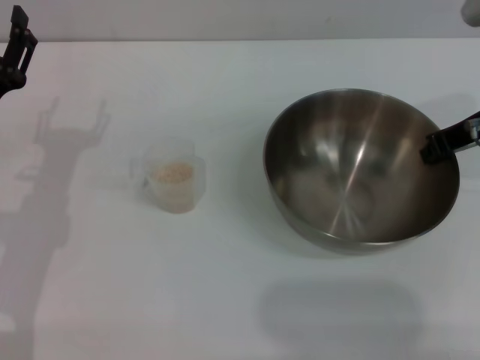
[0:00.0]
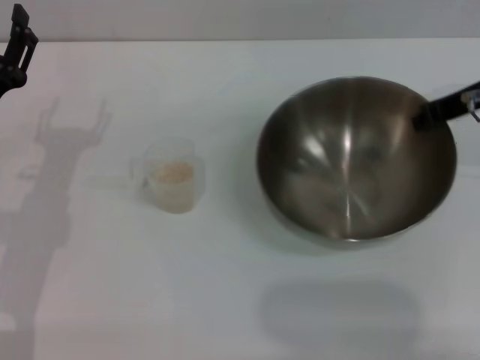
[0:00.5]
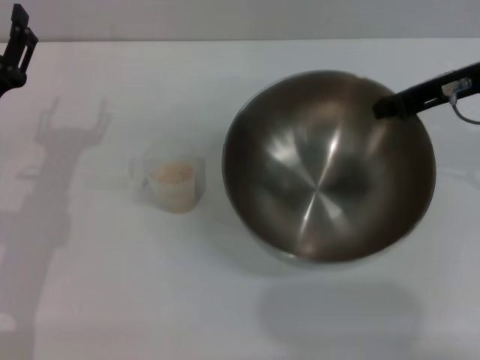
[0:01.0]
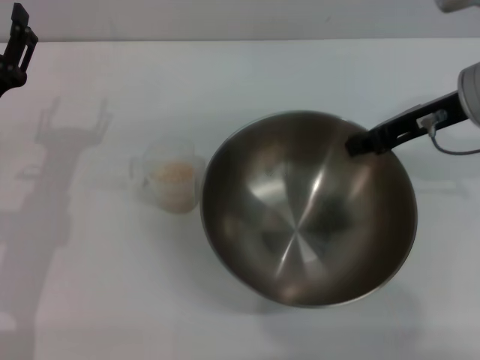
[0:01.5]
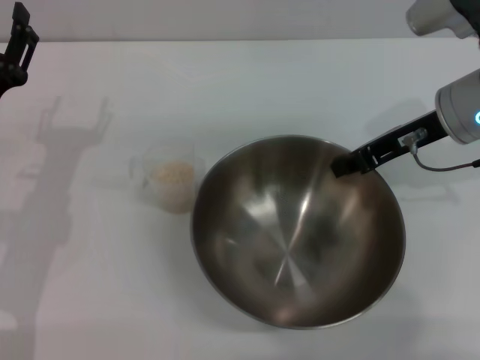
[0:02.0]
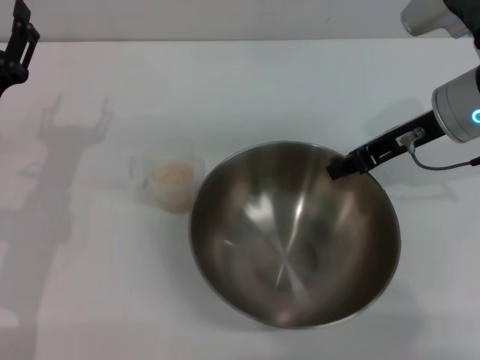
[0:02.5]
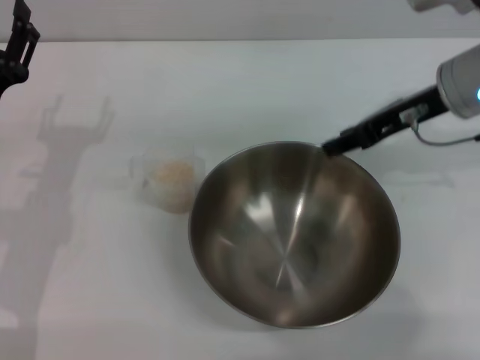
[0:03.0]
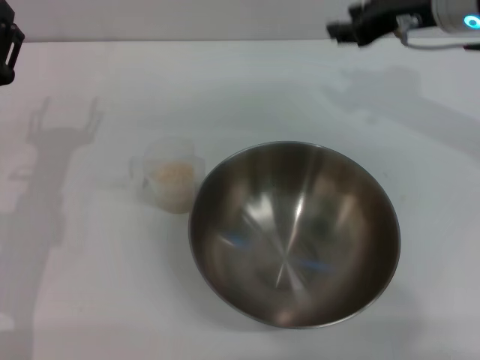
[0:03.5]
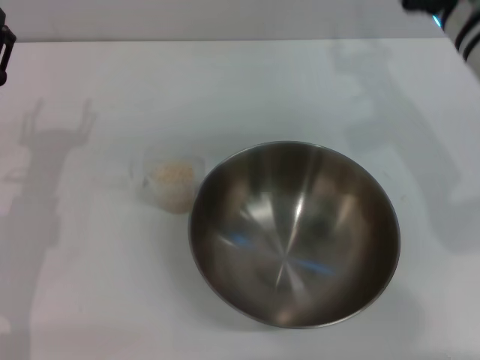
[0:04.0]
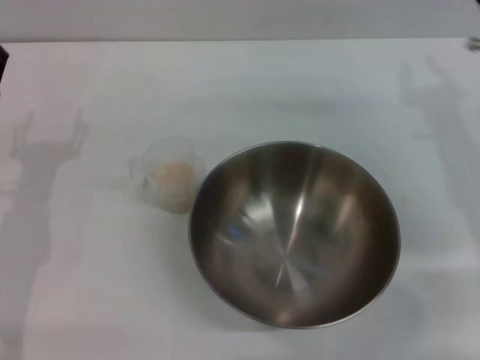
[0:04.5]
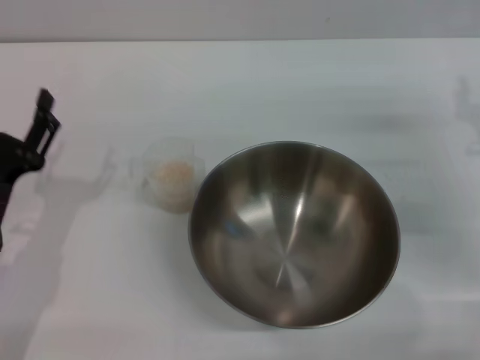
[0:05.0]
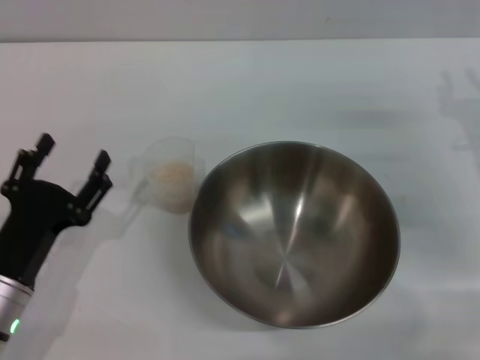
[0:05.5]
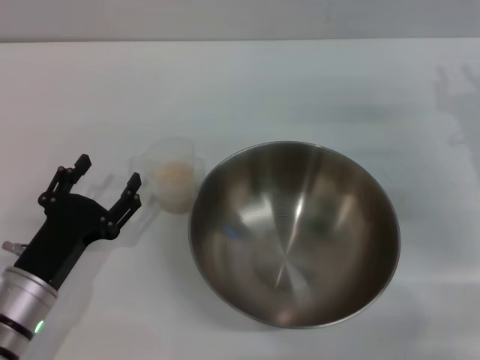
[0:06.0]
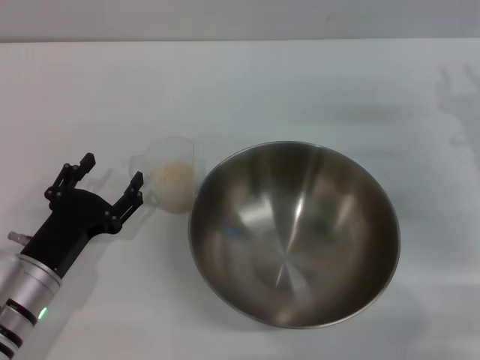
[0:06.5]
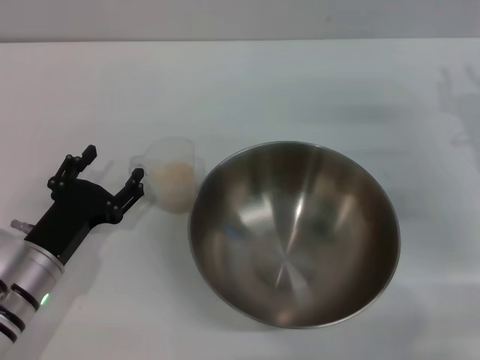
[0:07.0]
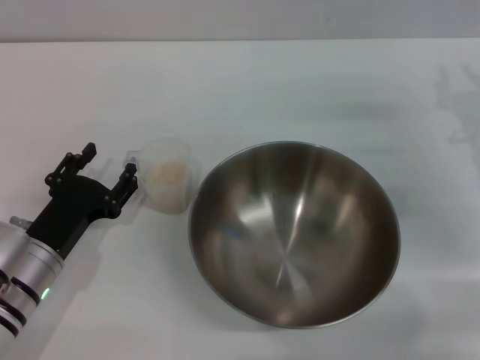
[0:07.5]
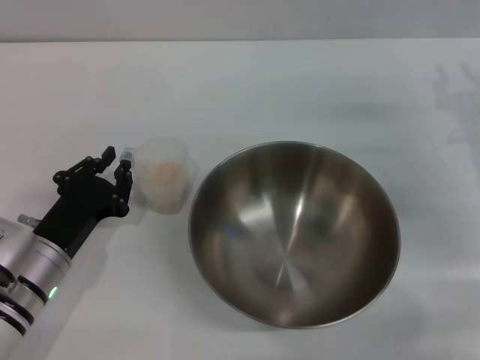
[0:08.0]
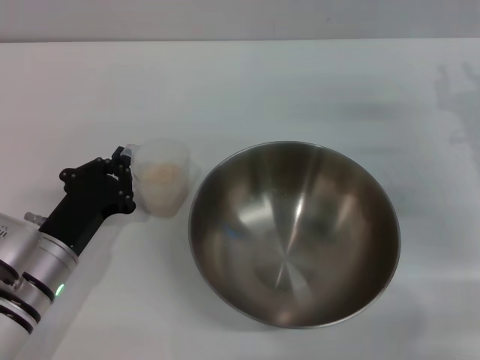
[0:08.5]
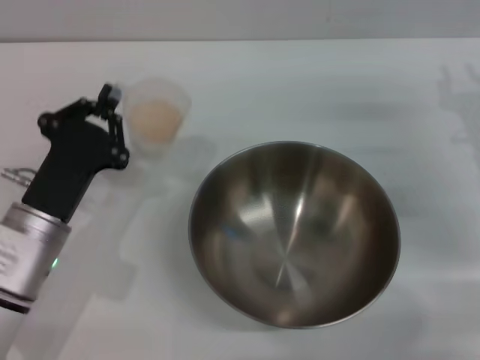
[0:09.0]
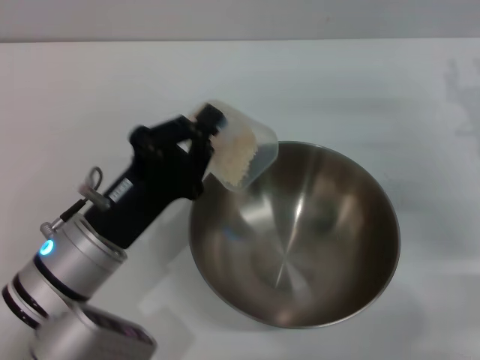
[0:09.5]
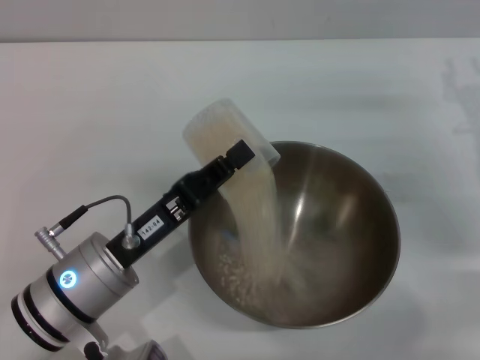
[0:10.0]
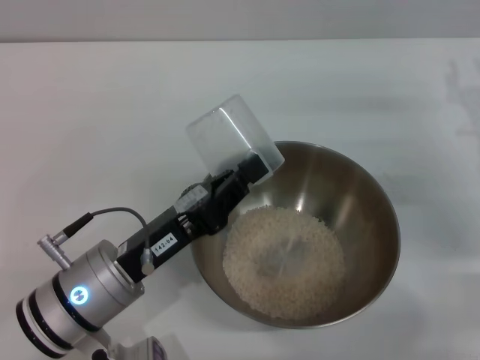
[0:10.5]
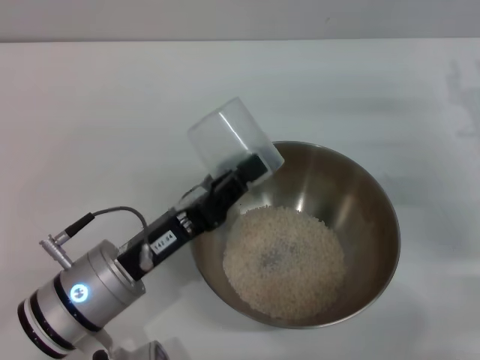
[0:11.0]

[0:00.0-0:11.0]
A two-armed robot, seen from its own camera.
Task of the whole recording: Place the bowl in the middle of the table with one hand and pour the rice from the grain cup into it with the other hand.
Step, 0:01.0 to 0:03.0: Place the bowl in the center of view with the right gripper.
Step, 0:03.5 to 0:08.5: Pick up the cup with rice in it with the left gripper.
Step, 0:09.0 to 0:10.5: Pour the rice from the cup into the bowl with the left gripper.
0:02.0 to 0:03.5: The right gripper moves upward, roughly 5 cm, and opens up.
0:03.5 to 0:05.5: The left gripper moves backward and downward, about 10 cm; the right gripper shifts some 20 cm downward, to the right and backward.
0:05.5 to 0:07.5: The grippers stay close to where they were, moving slightly.
0:07.5 to 0:09.0: The left gripper closes.
0:09.0 to 0:11.0: The left gripper goes some 5 cm to the right.

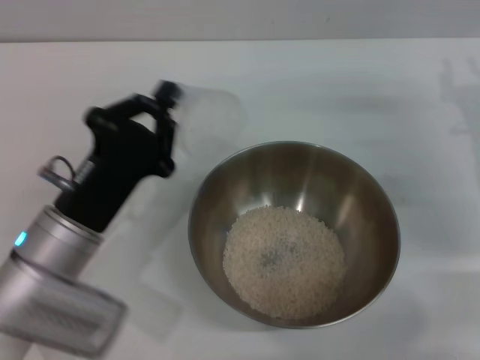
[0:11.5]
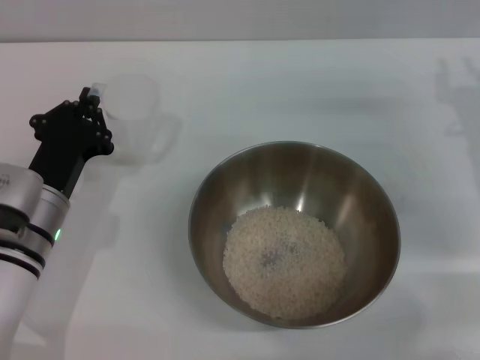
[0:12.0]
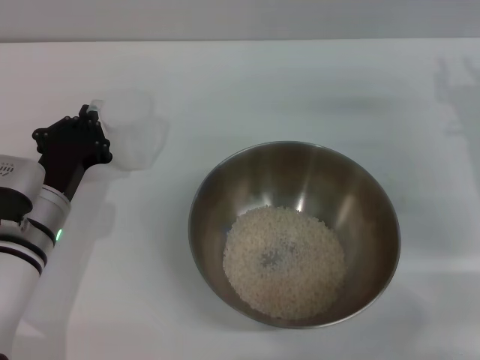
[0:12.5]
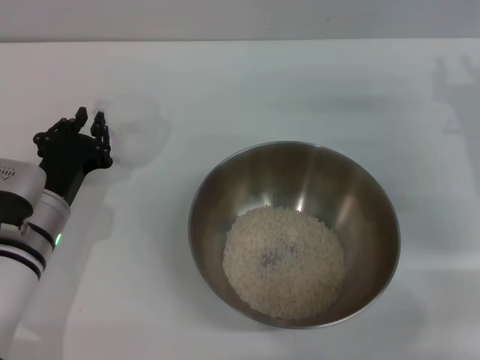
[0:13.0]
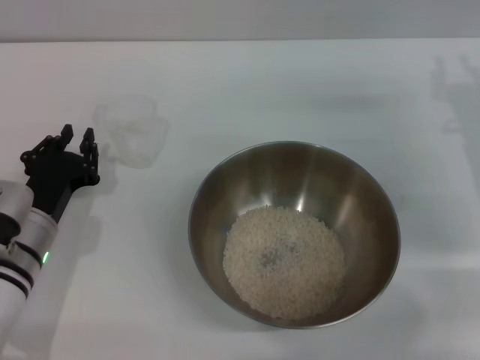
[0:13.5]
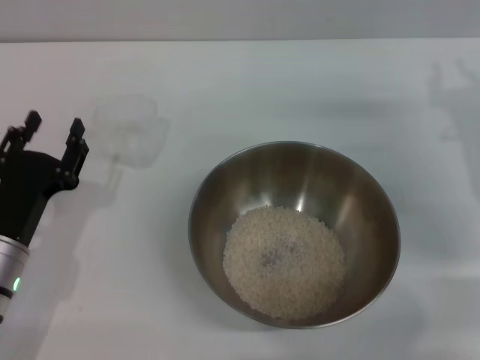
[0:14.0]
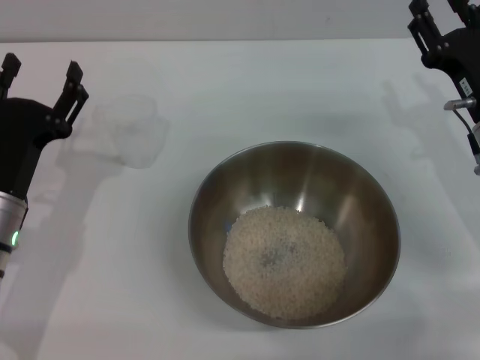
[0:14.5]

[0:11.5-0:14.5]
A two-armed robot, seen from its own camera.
Task of the whole recording: Place the bowl in the middle of the table with one hand and pour the rice from the grain cup into it with the other hand.
Step, 0:11.5 to 0:13.5: Place the cup on the table with the left gripper.
0:11.5 to 0:13.0: The left gripper is displaced forward by approximately 5 cm.
0:13.0 to 0:14.5: The left gripper opens.
